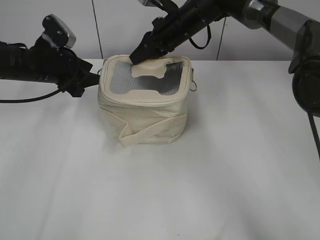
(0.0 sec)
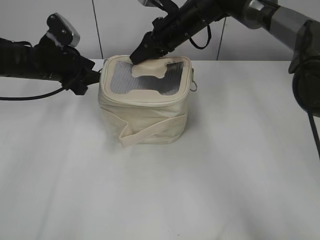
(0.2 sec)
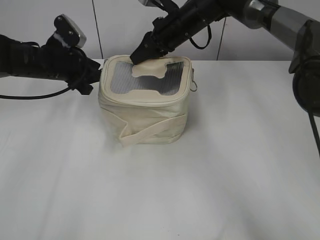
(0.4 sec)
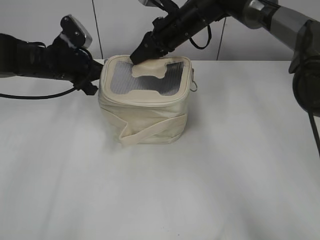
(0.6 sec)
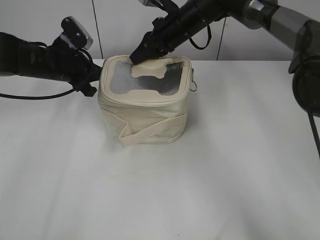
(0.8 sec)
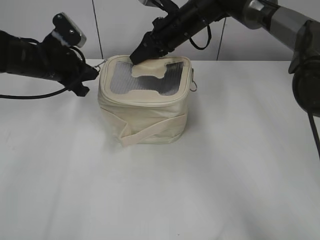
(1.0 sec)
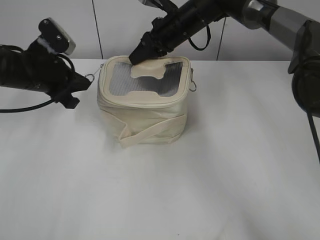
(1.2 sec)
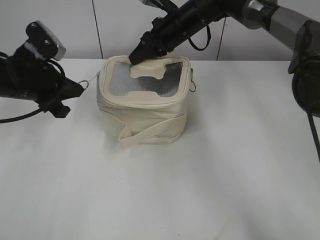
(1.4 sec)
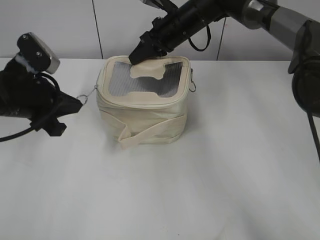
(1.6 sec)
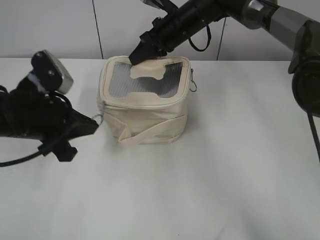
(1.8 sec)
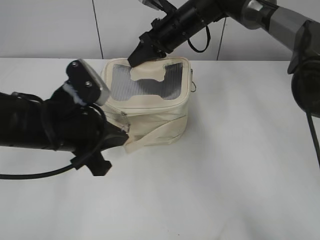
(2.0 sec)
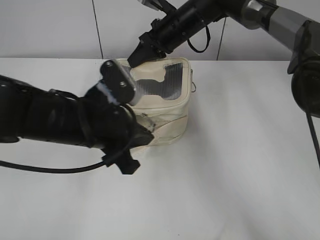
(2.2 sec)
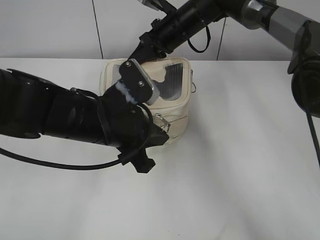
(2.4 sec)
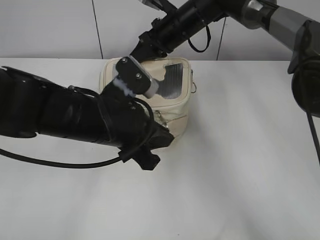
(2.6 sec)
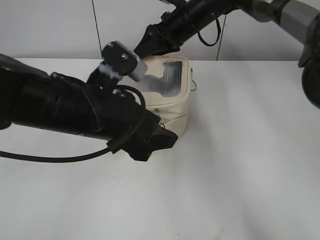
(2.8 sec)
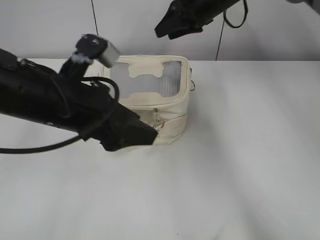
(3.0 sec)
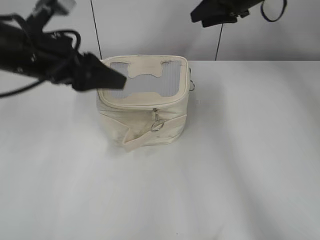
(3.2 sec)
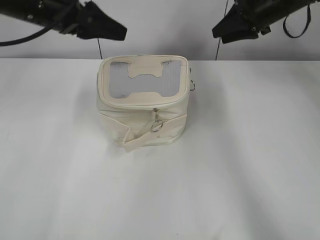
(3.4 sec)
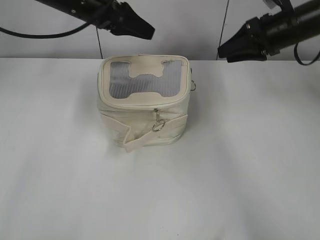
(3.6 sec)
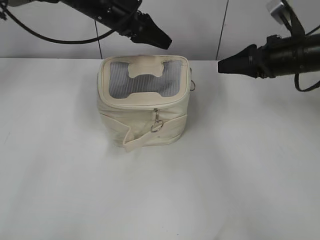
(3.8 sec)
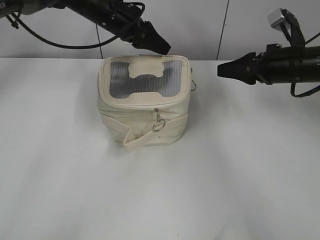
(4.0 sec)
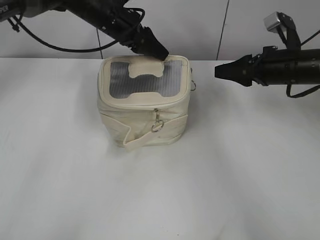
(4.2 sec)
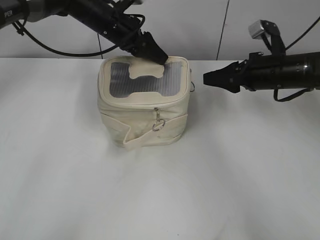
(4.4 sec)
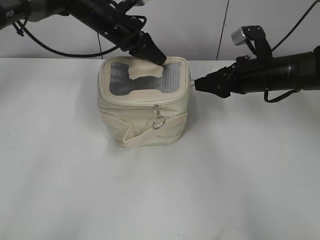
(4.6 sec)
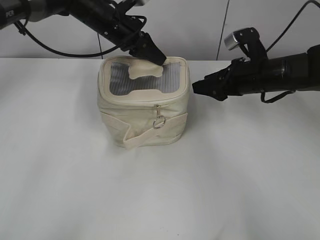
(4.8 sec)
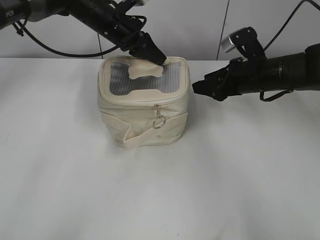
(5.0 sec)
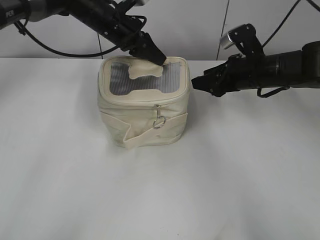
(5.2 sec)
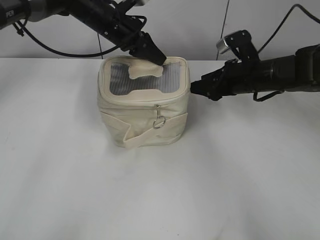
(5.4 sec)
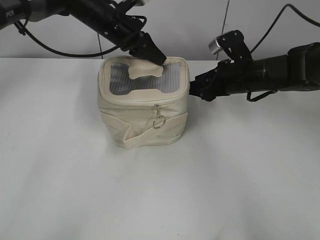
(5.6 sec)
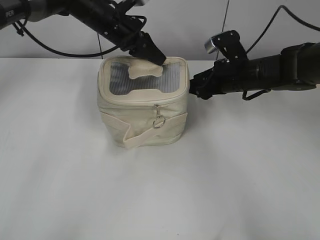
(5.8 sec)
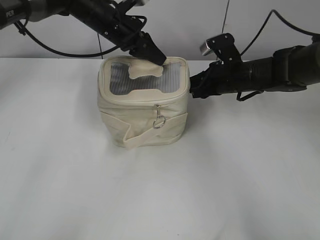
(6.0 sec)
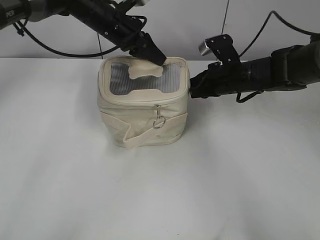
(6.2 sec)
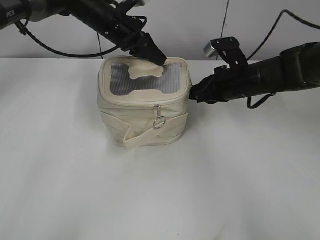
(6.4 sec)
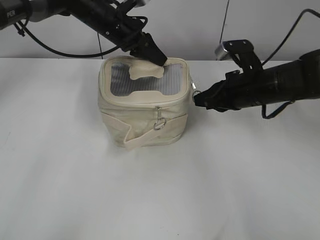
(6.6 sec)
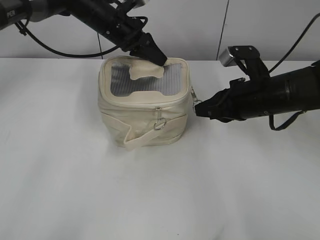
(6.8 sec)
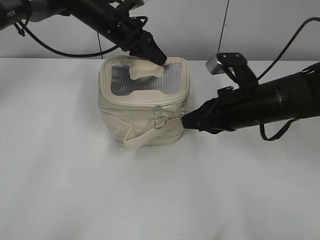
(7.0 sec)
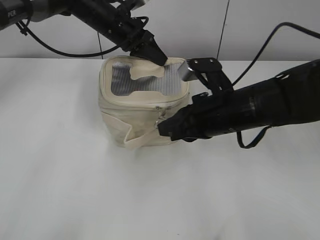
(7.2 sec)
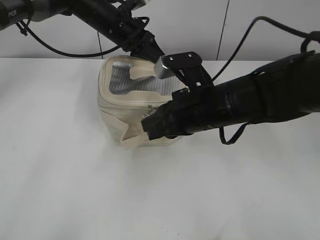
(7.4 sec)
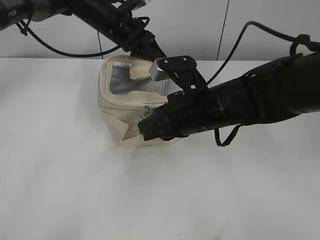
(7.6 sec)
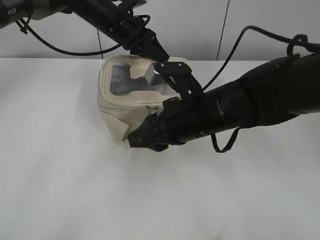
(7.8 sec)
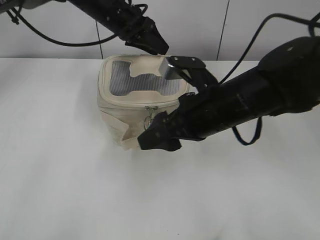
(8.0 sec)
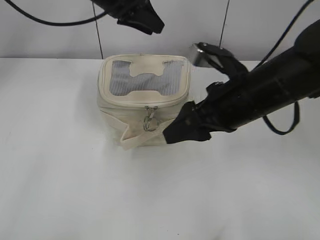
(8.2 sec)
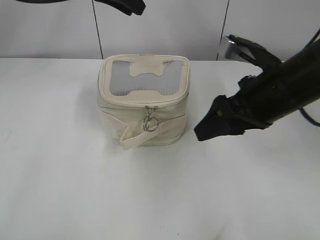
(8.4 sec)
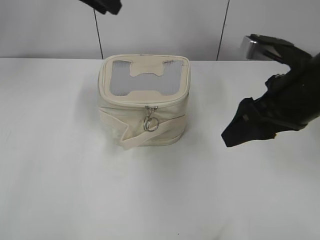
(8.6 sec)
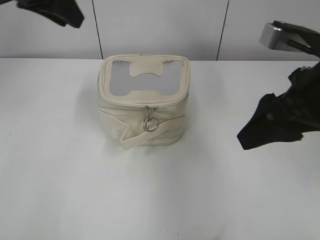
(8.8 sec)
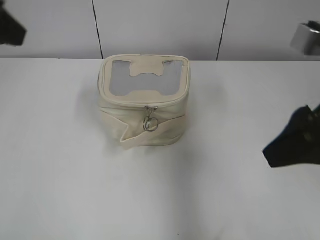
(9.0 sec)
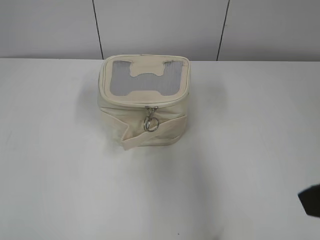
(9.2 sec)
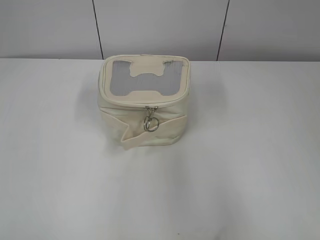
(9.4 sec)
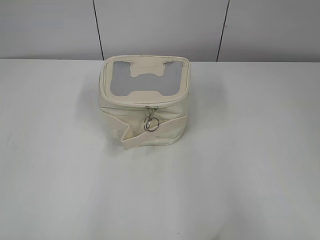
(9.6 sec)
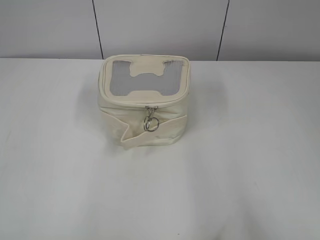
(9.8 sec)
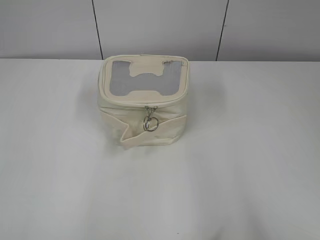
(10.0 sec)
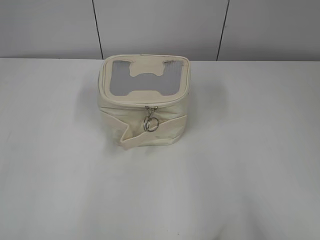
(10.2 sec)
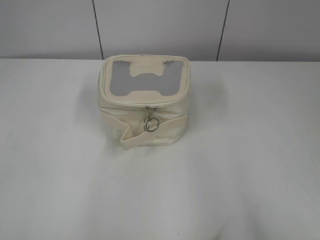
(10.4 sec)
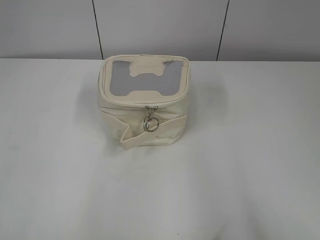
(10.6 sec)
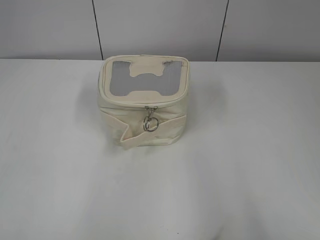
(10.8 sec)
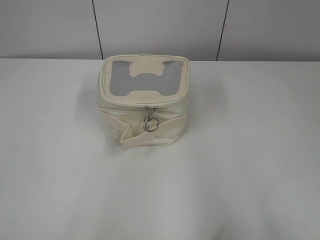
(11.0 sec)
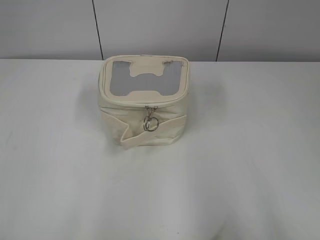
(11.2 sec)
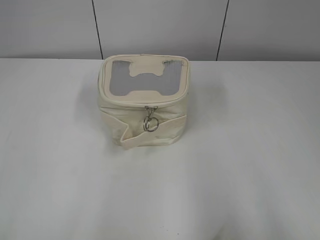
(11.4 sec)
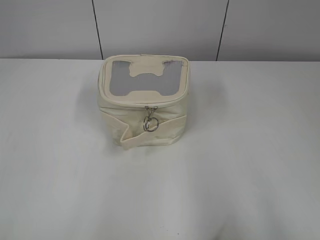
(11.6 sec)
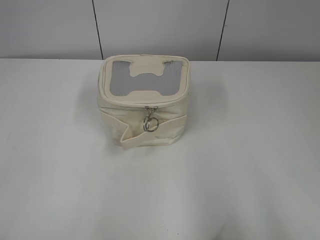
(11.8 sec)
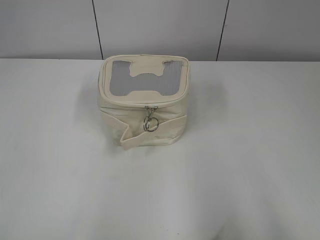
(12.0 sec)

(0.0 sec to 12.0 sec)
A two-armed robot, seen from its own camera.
Step, 0.0 sec - 2.6 sec: Zip up the bag with your left hand.
Step, 3.0 sec - 7.8 sec: Zip up the bag with your right hand.
Step, 8.0 sec - 8.2 sec: Hold the bag with your left hand.
0.0 sec - 1.6 sec: The left gripper is displaced backward by some 10 cm, and closes.
1.6 sec - 3.0 sec: The left gripper is displaced to the right and backward by about 15 cm, and opens. Meanwhile the right gripper shifts approximately 5 cm to the right, and opens its fingers.
3.0 sec - 4.4 sec: The right gripper shifts about 20 cm to the right, backward and downward. Meanwhile the left gripper moves forward, approximately 25 cm.
4.4 sec - 6.0 sec: The right gripper shifts some 5 cm to the left, while the left gripper closes its fingers.
6.0 sec - 7.6 sec: The right gripper goes roughly 15 cm backward and to the left, and closes its fingers.
7.6 sec - 9.0 sec: The left gripper goes some 30 cm backward, upward and to the left, and opens its fingers. The right gripper goes about 20 cm to the right, upward and backward, and opens.
9.0 sec - 10.4 sec: The right gripper travels backward and to the right by about 25 cm; the left gripper heads backward and to the left, covering roughly 30 cm.
